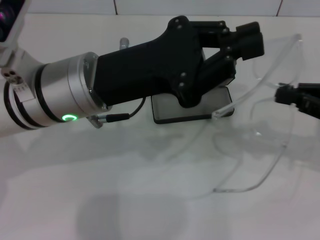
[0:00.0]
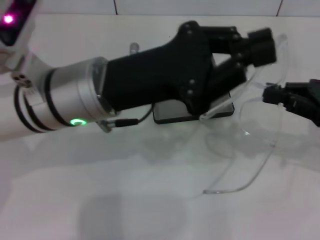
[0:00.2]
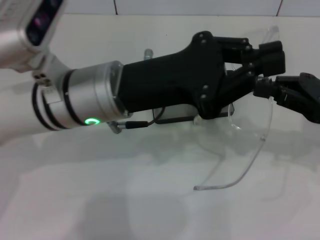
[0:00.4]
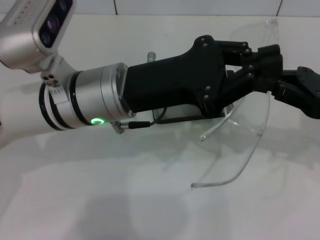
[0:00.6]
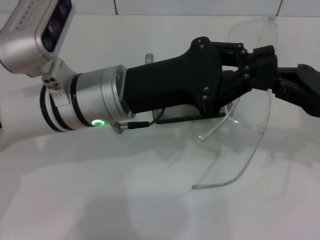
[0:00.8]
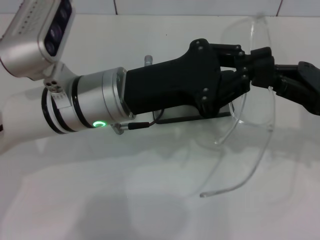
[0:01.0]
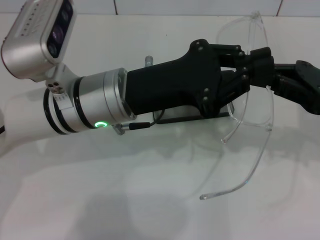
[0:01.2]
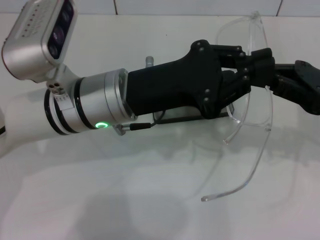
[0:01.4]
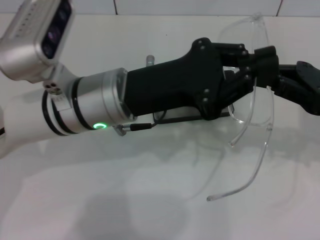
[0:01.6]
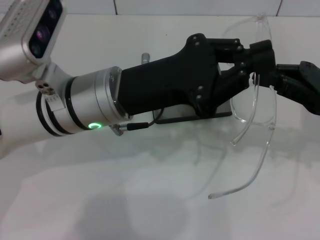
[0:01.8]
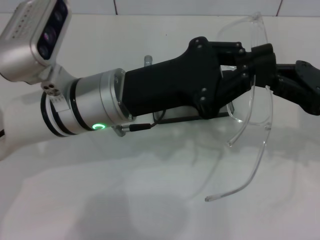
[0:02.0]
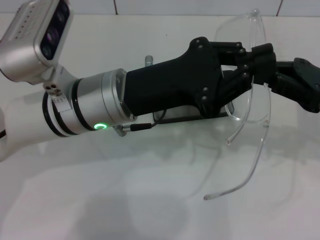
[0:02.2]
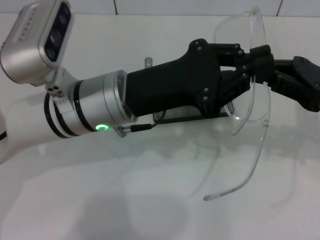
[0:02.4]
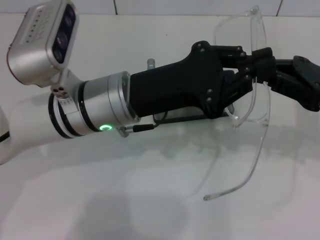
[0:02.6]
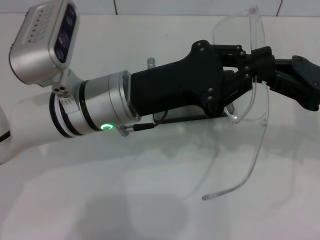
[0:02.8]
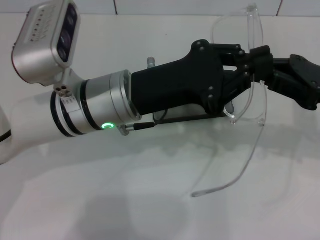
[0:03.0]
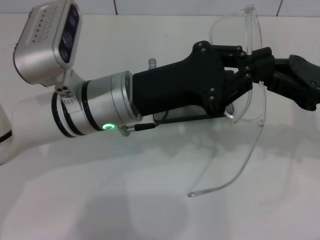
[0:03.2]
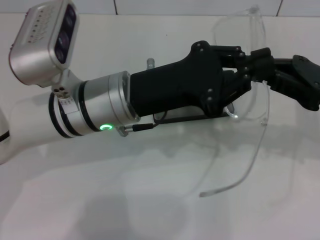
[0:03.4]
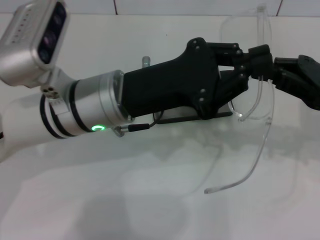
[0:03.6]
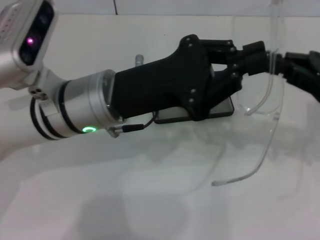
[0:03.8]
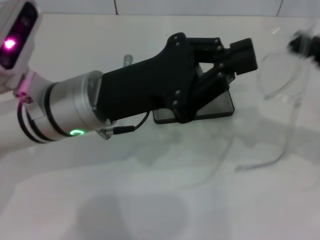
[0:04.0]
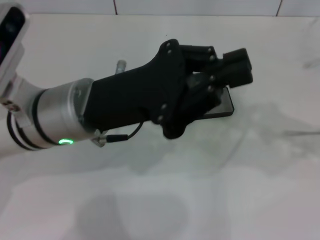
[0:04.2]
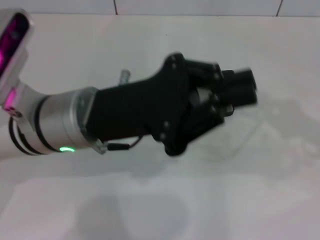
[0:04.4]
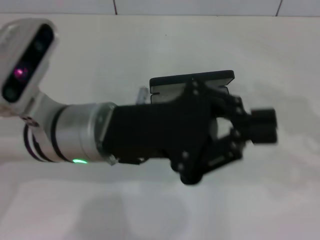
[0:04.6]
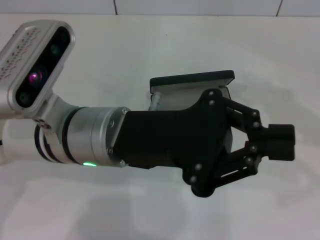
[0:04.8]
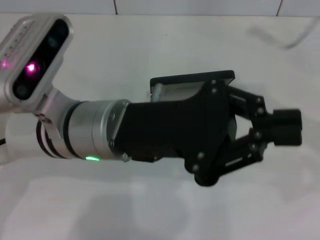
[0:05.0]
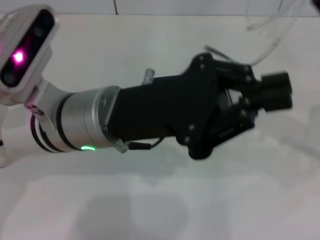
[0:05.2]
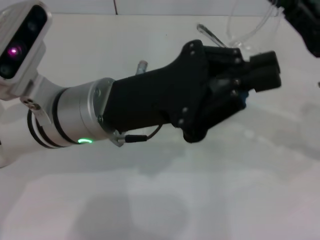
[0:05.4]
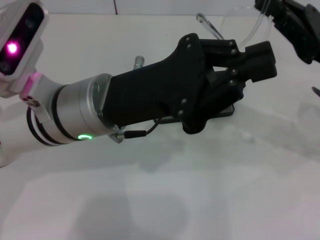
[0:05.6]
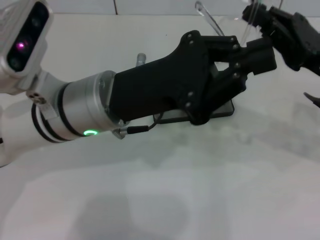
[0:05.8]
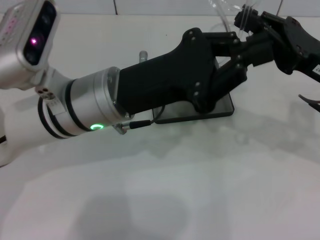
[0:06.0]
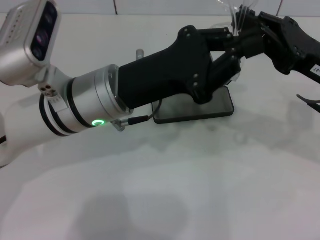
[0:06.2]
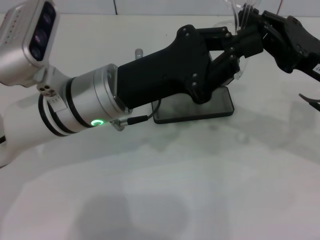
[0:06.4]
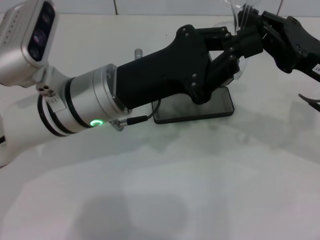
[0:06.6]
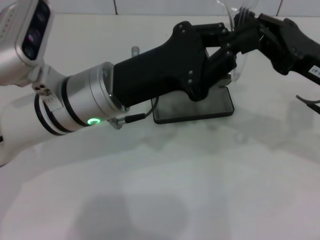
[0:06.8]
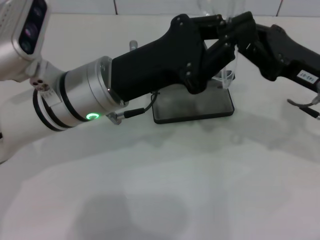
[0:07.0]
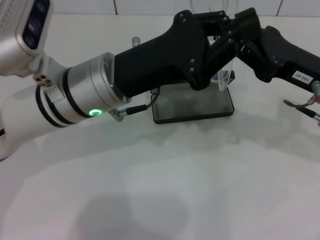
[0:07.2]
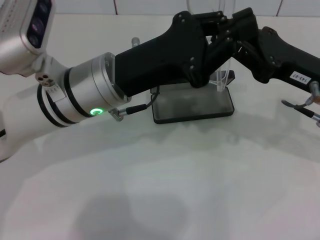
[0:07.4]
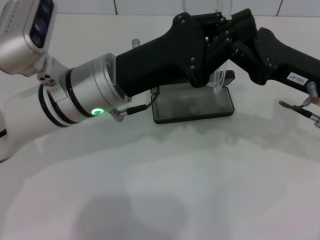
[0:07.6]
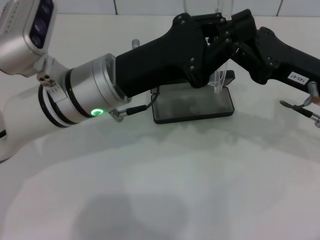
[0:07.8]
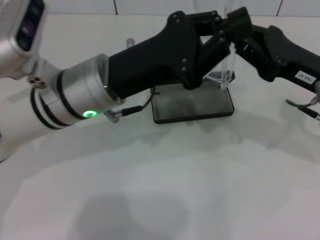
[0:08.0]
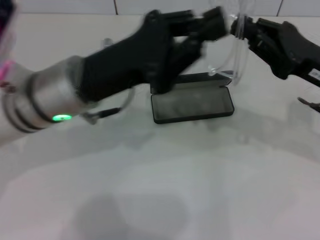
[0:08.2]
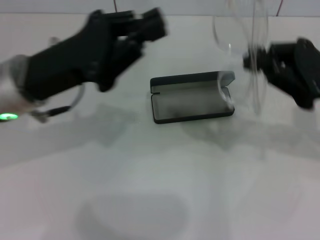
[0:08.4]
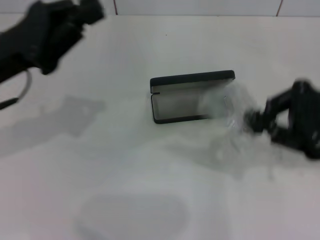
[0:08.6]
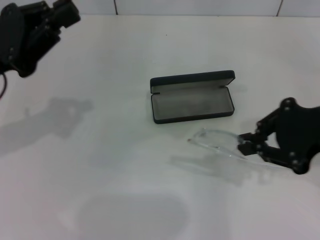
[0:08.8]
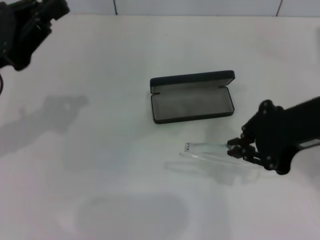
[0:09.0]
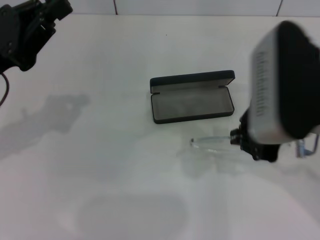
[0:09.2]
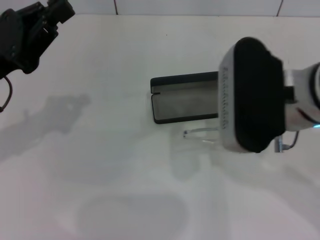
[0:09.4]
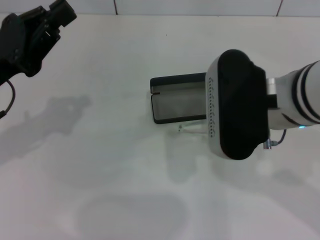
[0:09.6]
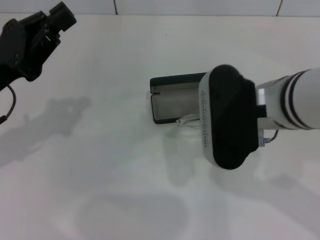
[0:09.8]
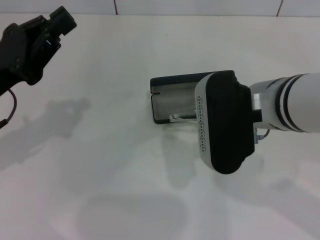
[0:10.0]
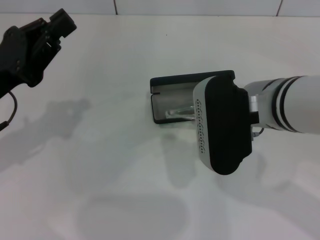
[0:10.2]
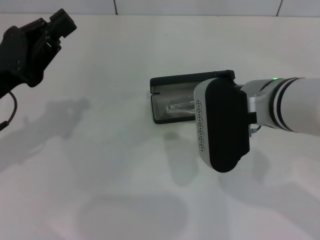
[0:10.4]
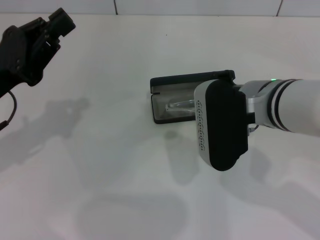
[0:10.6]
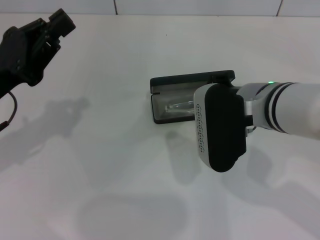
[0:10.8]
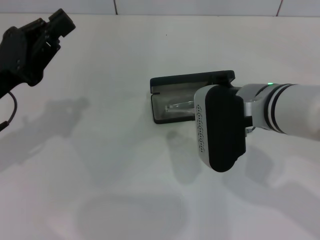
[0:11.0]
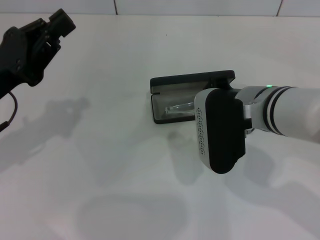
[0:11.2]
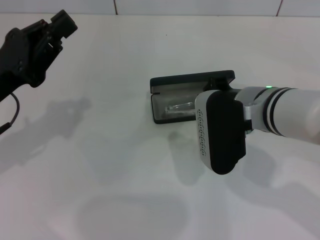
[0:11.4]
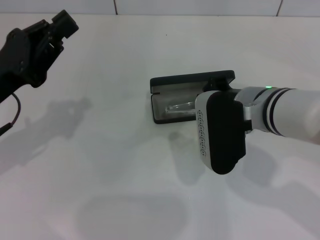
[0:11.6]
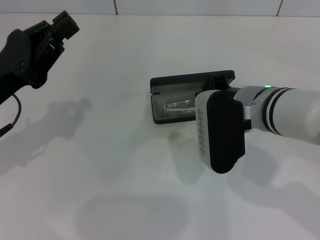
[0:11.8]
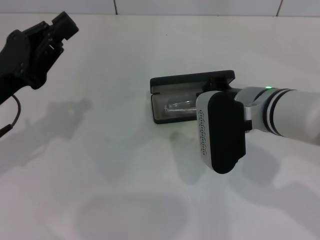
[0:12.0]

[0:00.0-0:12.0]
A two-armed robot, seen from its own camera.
Step, 0.0 to 7.8 s: Lift the glasses with your right hand.
1.6 to 3.0 s: The grippers stay close to where they were, moving slightly.
3.0 to 4.4 s: The right gripper moves to the right, approximately 10 cm.
4.4 to 6.0 s: The right gripper shifts roughly 10 cm to the left.
7.6 to 9.0 s: The right gripper travels upward and backward by about 10 cm; the left gripper moves to the left, some 15 cm.
9.0 to 10.4 s: The right gripper is displaced to the left and downward by some 10 cm.
10.4 to 12.0 s: There are only small adjustments of the grippers.

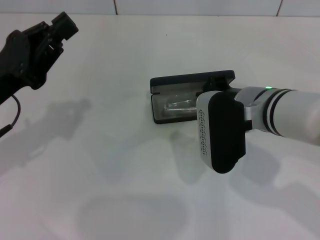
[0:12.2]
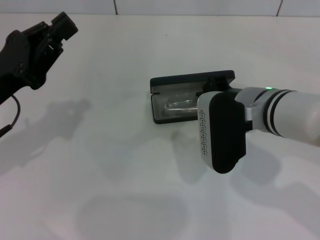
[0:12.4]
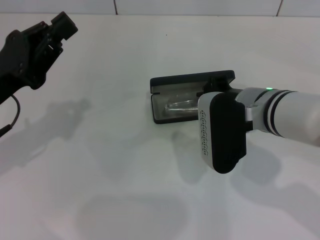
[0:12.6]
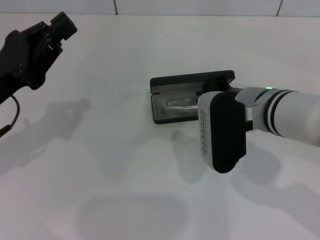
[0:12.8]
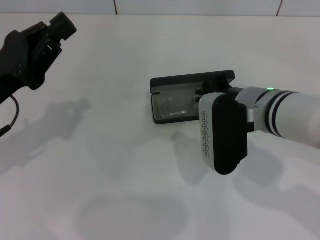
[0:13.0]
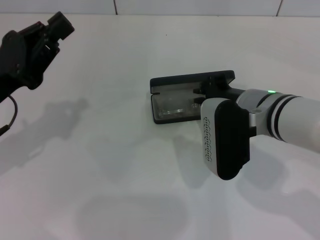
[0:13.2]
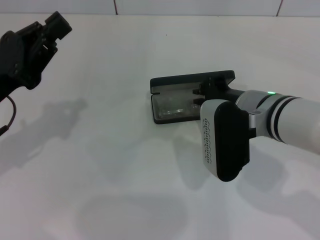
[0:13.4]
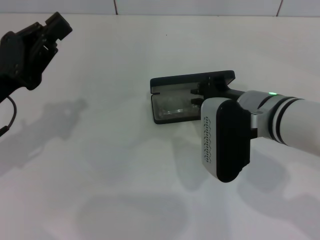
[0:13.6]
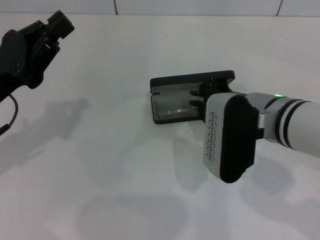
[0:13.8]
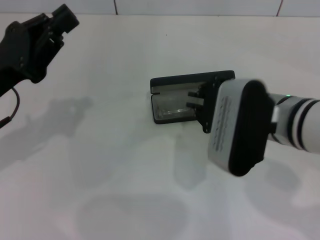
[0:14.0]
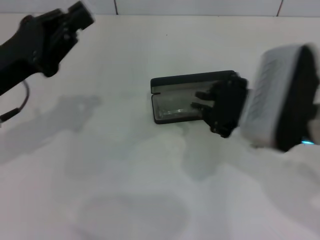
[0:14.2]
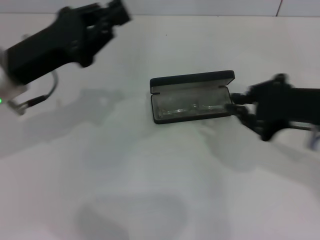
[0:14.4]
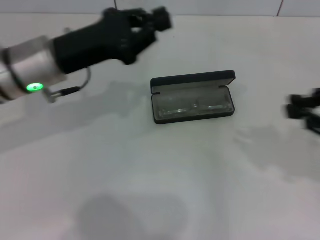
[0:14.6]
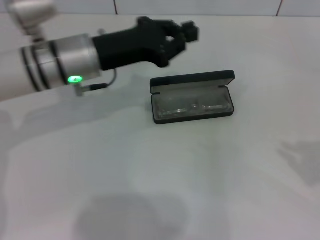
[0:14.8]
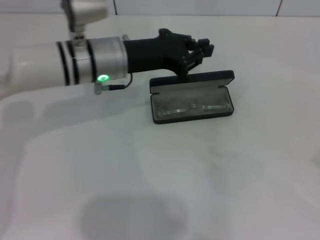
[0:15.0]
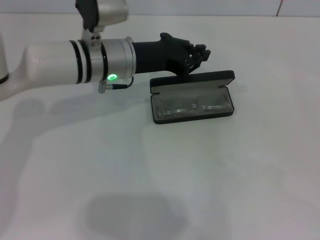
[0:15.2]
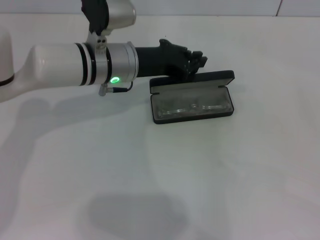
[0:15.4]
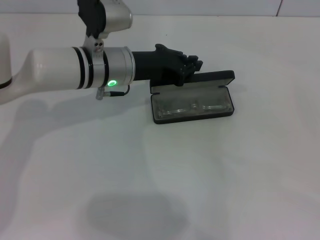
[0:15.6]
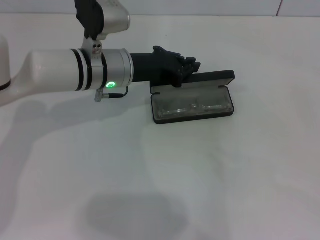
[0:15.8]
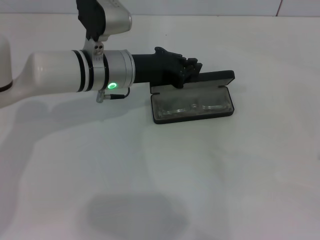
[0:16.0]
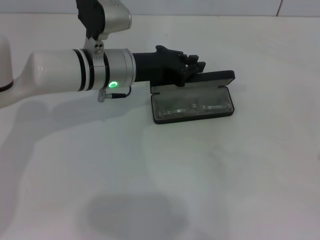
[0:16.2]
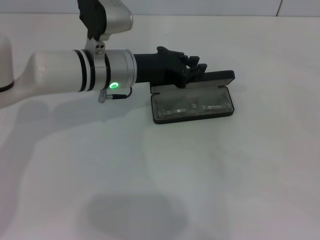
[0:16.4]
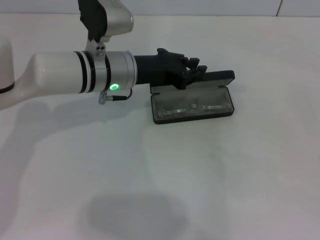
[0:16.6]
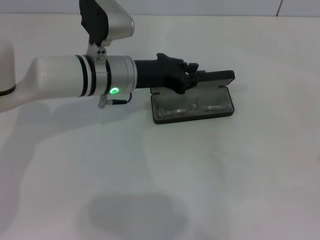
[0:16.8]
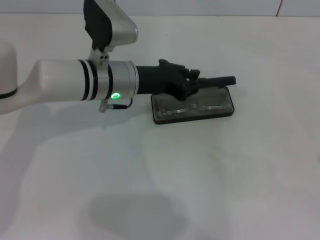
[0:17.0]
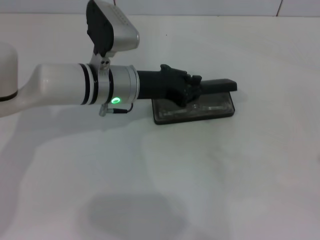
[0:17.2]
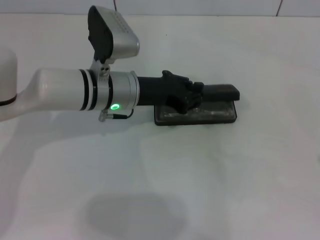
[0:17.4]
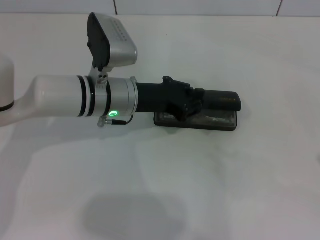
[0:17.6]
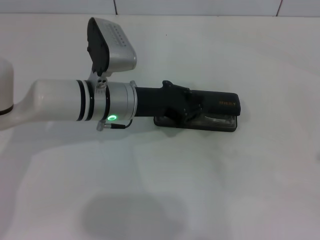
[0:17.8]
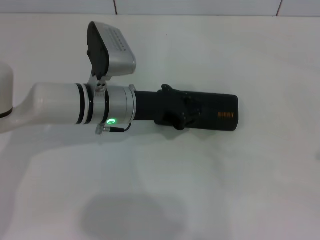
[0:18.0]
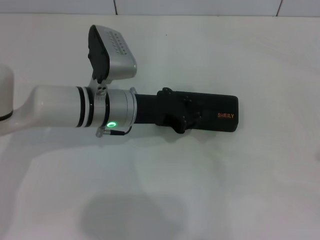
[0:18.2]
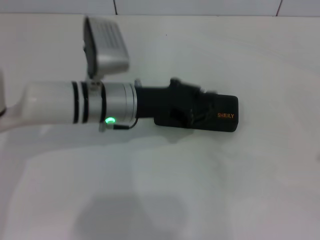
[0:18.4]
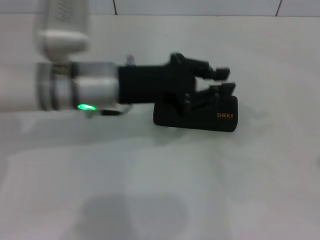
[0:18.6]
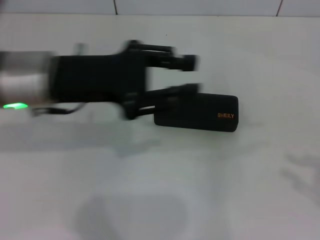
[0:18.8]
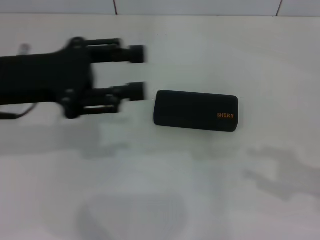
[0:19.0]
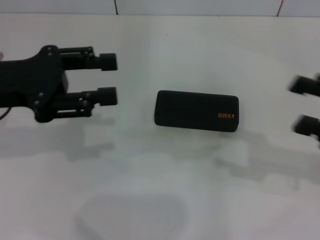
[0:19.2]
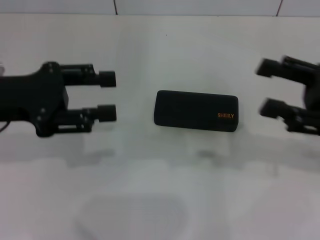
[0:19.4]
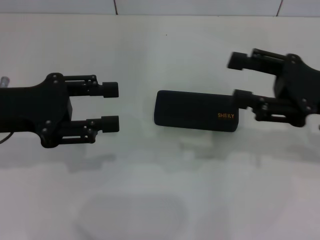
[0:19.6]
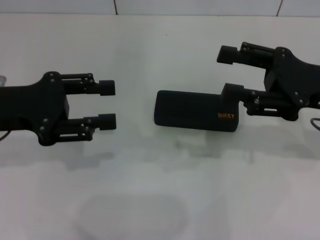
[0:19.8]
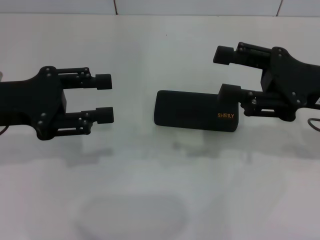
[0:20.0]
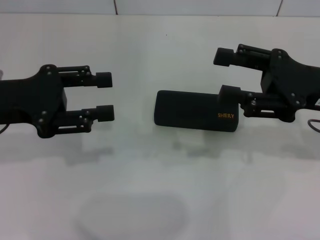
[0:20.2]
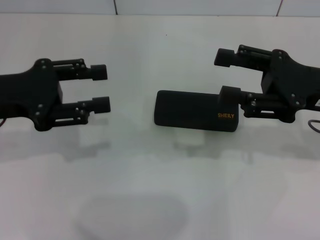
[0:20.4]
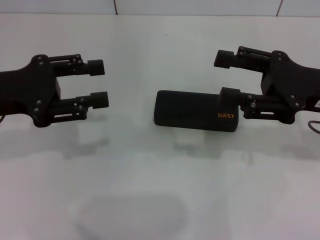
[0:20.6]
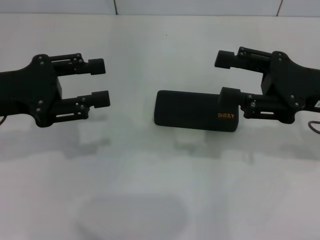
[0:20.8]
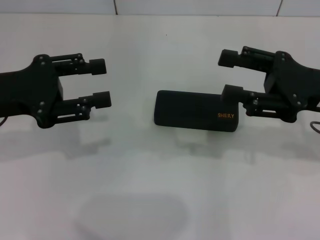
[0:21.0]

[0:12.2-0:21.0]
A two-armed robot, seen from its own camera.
Step, 13.2 to 18.0 s: Close the glasses case with your left hand.
12.2 to 13.6 s: There are only small adjustments of the grippers.
13.6 to 15.2 s: The left gripper shifts roughly 20 cm to the right and forward; the right gripper moves to the right and backward, roughly 40 cm.
15.2 to 18.0 s: There are only small adjustments of the grippers.
18.0 to 19.6 s: The right gripper is displaced to the left and forward by roughly 25 cm, and opens up. Meanwhile the left gripper goes some 20 cm to the left, upward and backward, and opens up.
19.6 to 21.0 s: The grippers stay close to where they were, moving slightly.

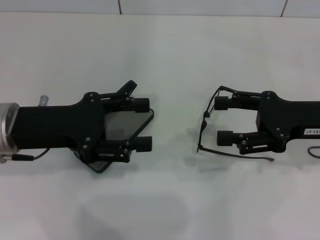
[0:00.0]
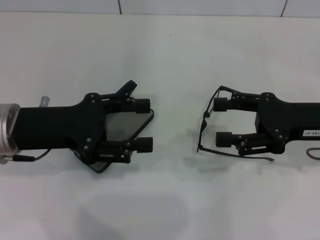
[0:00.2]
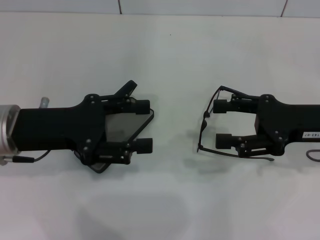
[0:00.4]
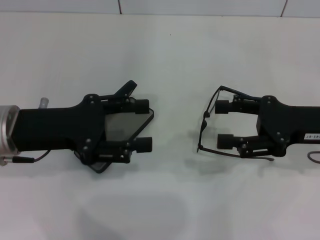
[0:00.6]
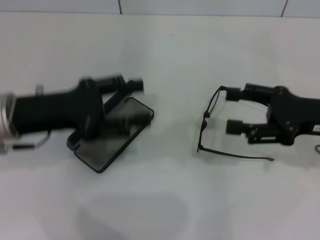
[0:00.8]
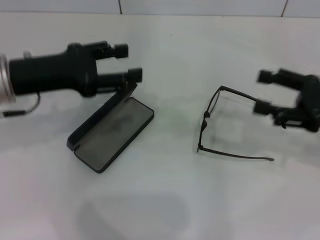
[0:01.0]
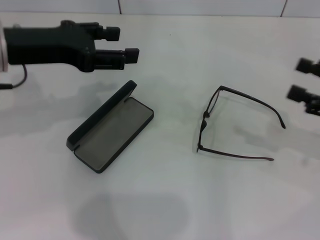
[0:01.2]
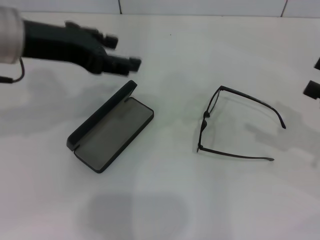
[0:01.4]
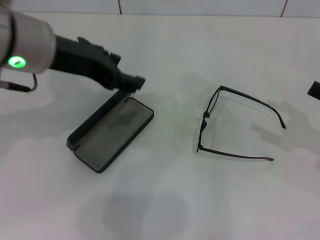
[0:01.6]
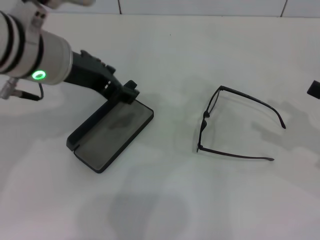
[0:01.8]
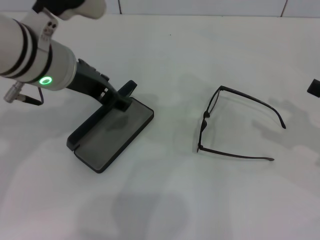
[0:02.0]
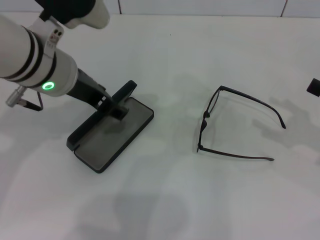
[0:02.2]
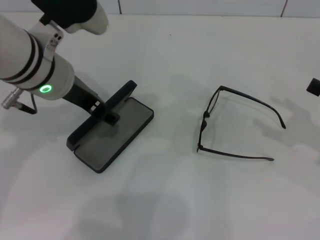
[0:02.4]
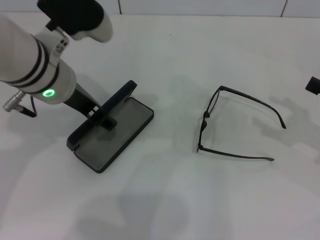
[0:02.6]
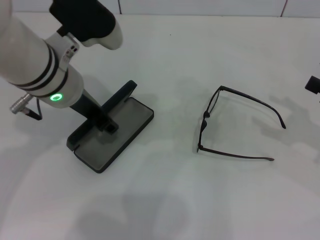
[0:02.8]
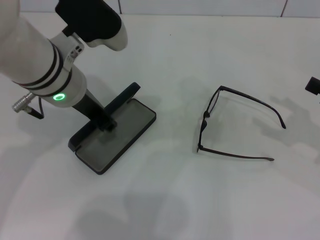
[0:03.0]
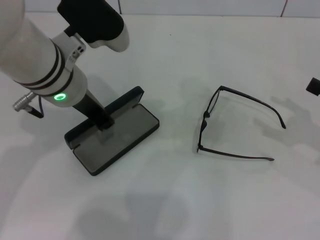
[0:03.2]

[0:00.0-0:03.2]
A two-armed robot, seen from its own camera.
Step, 0.0 to 2.8 s: Grab the glasses case with your left hand.
0.0 to 1.6 s: The left gripper is displaced upward and to the right by roughly 10 cm. Meanwhile the right gripper is displaced to the right by approximately 10 cm.
1.6 to 3.2 s: The left gripper shifts some 5 cm downward, and closes its fingers.
